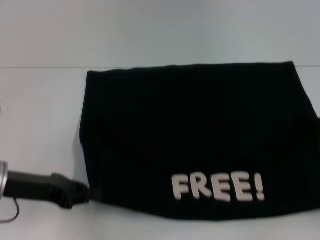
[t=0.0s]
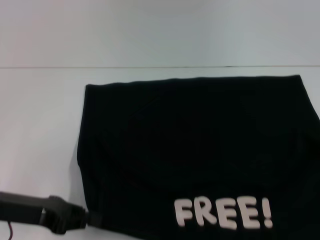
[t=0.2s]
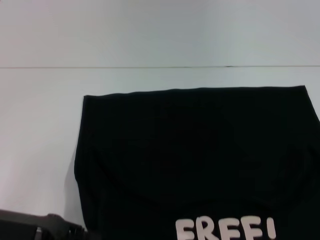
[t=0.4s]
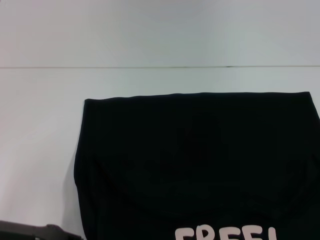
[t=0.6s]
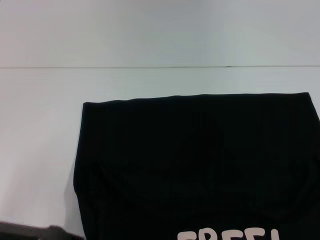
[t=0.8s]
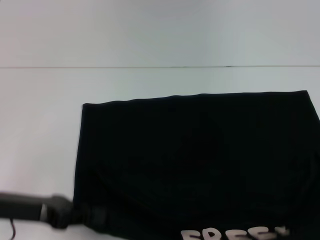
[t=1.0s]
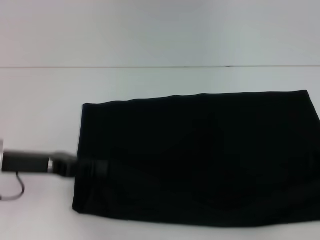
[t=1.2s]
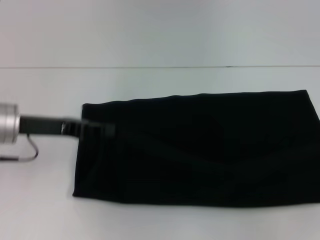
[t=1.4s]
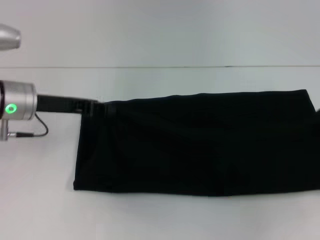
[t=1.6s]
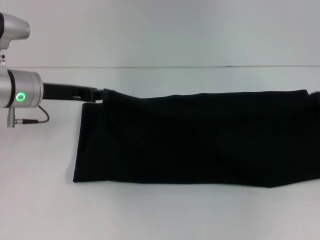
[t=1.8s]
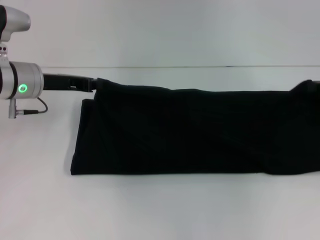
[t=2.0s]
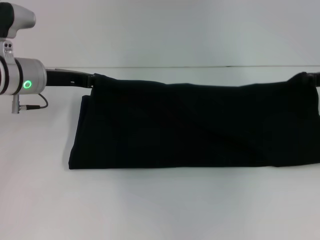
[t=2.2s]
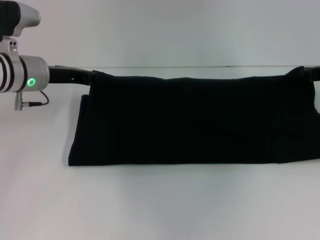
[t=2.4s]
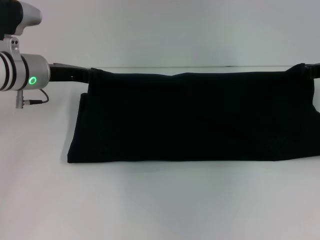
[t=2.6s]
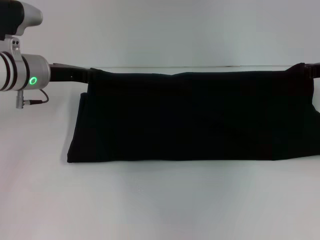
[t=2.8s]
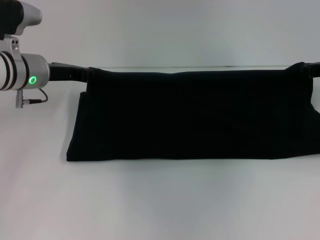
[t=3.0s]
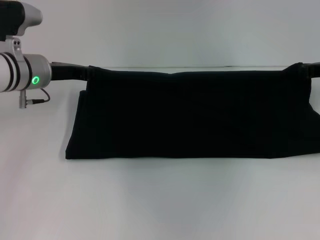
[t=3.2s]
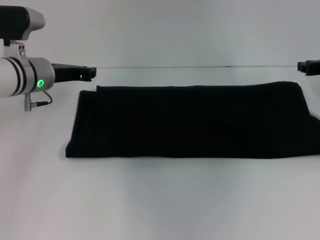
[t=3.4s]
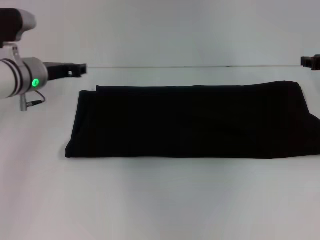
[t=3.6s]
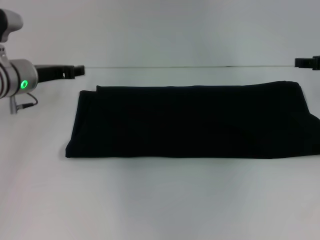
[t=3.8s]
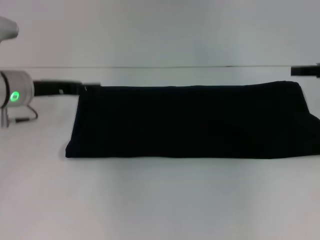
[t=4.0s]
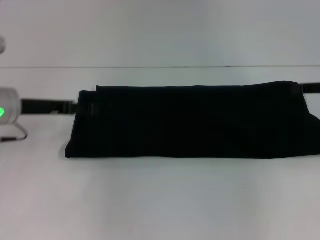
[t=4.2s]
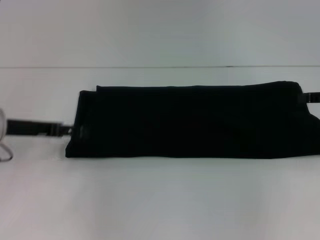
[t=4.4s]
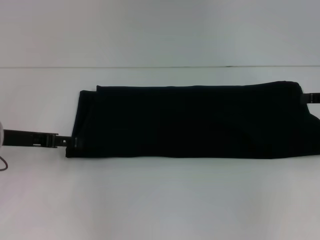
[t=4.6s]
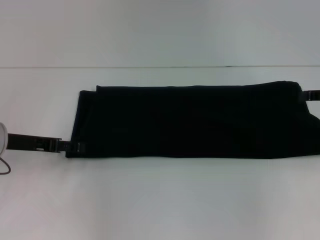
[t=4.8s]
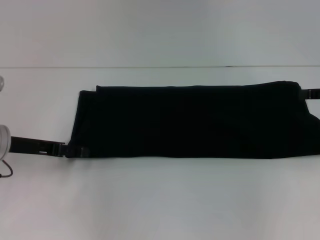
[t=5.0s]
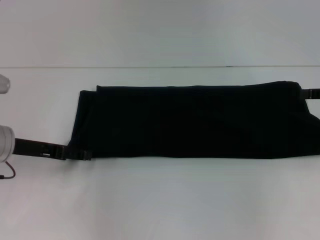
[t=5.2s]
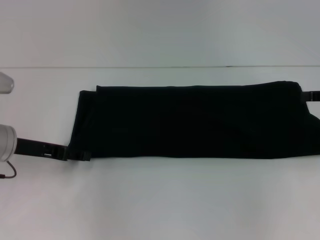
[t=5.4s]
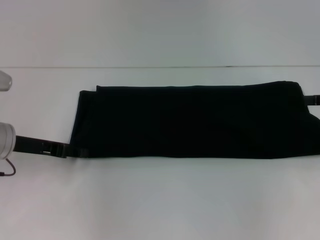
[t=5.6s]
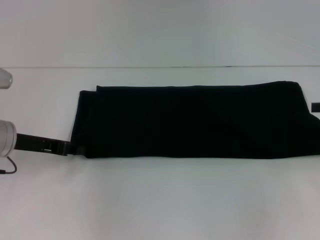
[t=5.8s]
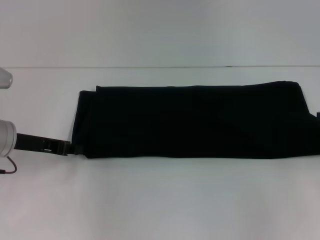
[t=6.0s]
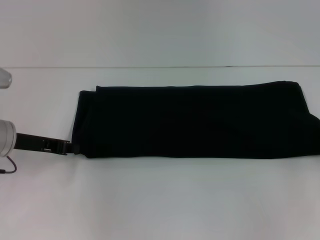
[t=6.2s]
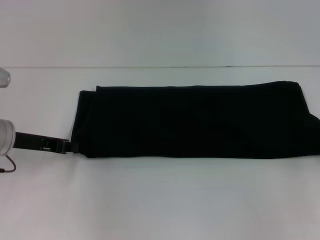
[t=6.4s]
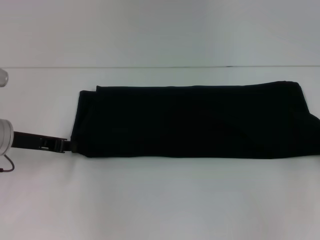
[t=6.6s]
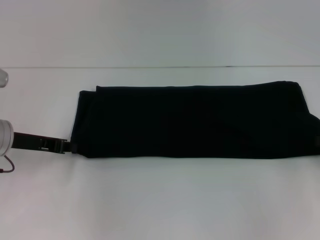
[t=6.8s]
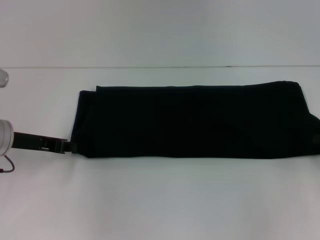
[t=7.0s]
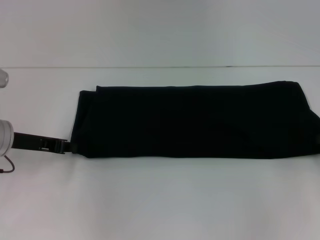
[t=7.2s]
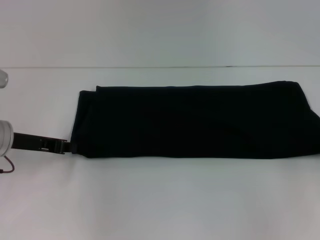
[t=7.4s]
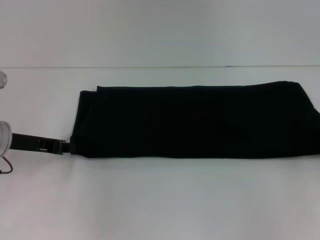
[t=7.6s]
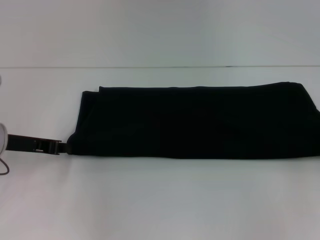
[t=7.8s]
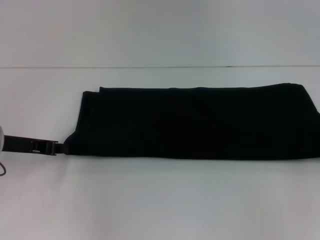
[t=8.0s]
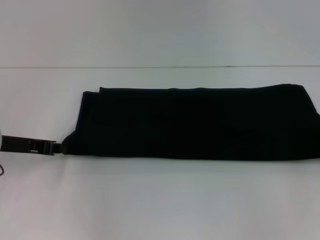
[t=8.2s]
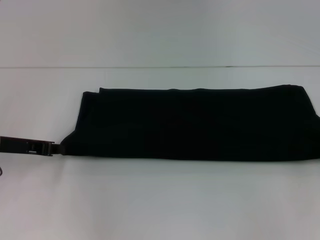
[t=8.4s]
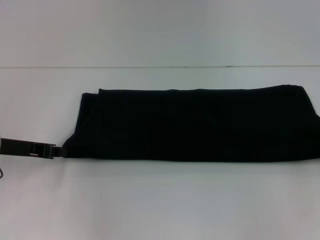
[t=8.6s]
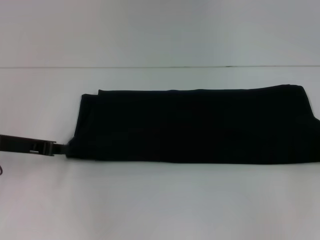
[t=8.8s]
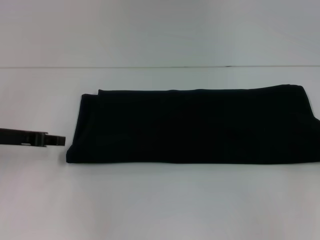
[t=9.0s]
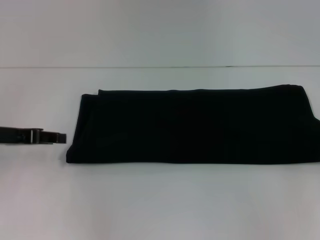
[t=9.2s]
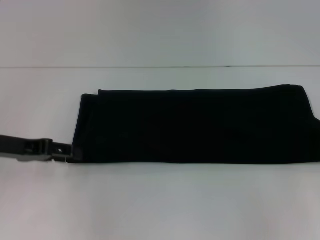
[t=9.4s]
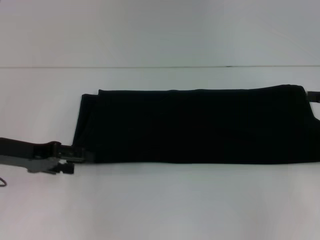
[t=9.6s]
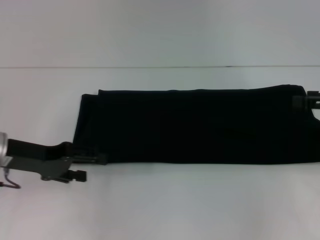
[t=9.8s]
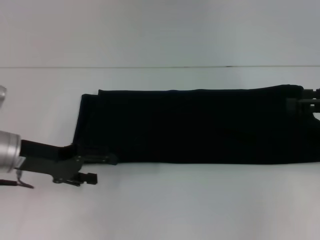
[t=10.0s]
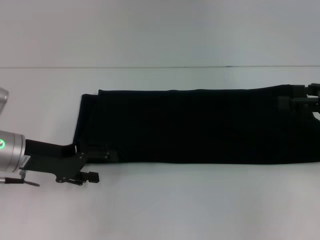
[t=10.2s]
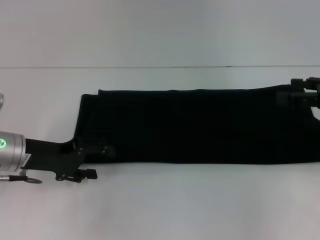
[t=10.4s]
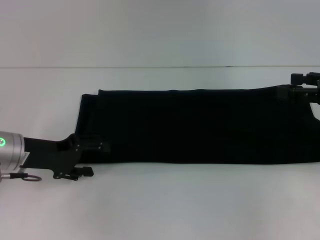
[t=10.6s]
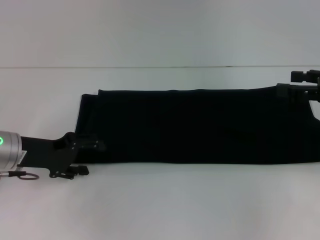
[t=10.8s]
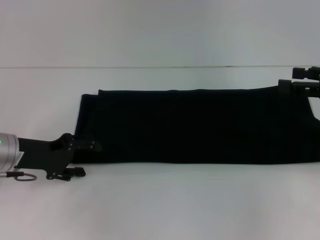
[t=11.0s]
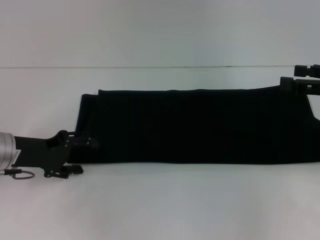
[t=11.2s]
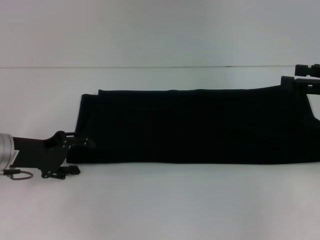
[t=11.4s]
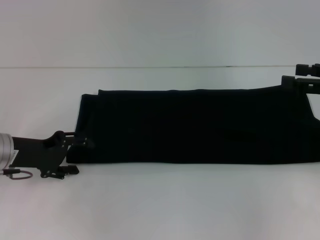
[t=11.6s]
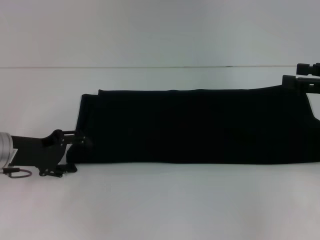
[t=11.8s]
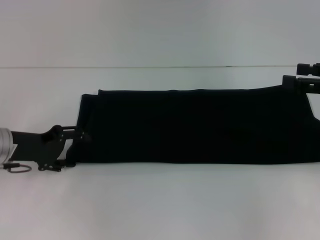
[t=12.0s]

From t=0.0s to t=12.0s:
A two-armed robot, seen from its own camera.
Step, from t=0.6s to t=3.8s: Fold the clothes with your right hand.
From t=0.0s to t=1.6s: Both grippers travel together forward, about 10 cm.
From t=1.6s to t=3.0s: The left gripper goes roughly 5 cm forward, while the right gripper shifts roughly 10 cm forward and to the left.
From t=3.0s to t=4.4s: The right gripper heads backward, covering some 5 cm, and opens up. Meanwhile the left gripper heads backward and to the left, covering about 10 cm, and opens up.
From t=4.4s to t=6.0s: The left gripper closes up.
From t=7.6s to t=9.0s: The grippers make only small movements.
From t=9.0s to t=10.4s: The left gripper changes place by some 5 cm, and opens up. Meanwhile the right gripper travels to the left by about 10 cm, and opens.
From t=10.4s to t=12.0s: The grippers move only a little.

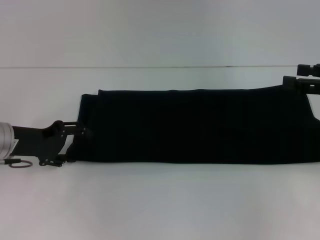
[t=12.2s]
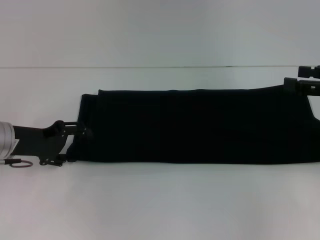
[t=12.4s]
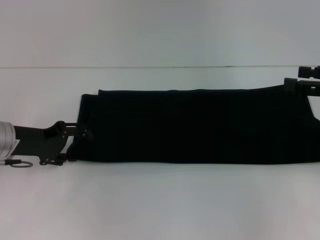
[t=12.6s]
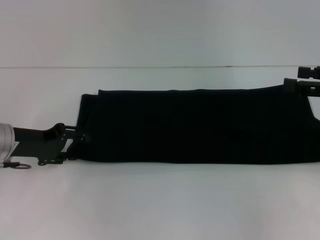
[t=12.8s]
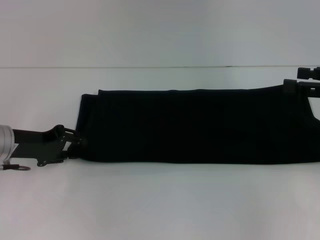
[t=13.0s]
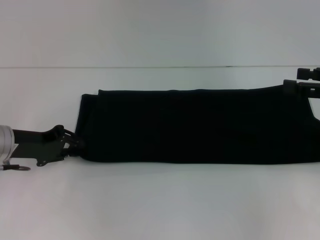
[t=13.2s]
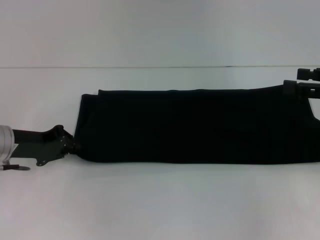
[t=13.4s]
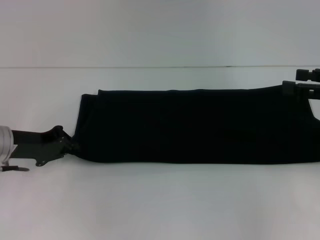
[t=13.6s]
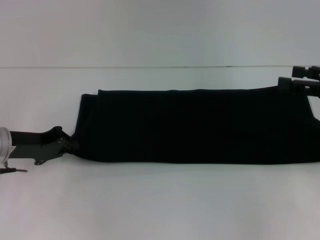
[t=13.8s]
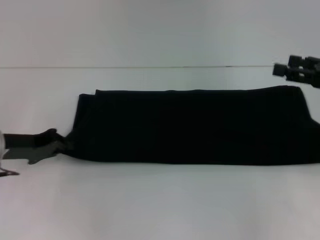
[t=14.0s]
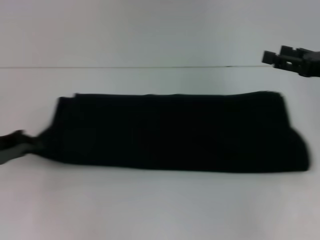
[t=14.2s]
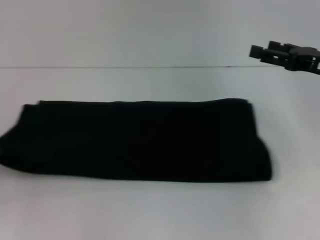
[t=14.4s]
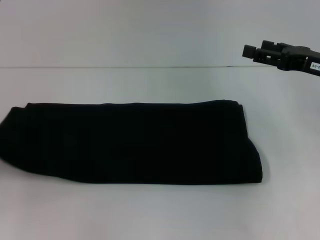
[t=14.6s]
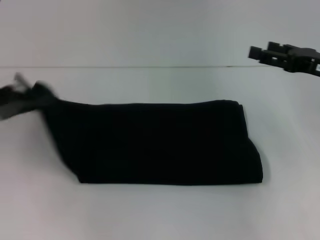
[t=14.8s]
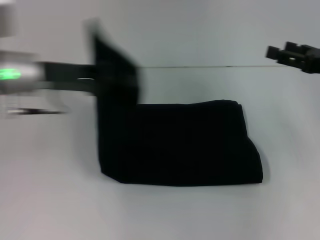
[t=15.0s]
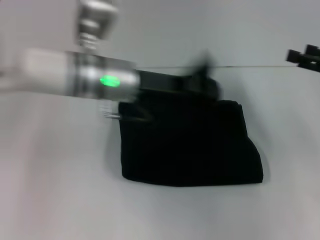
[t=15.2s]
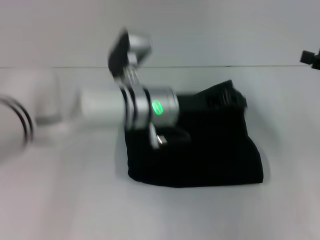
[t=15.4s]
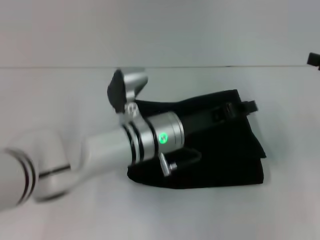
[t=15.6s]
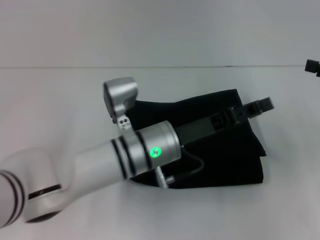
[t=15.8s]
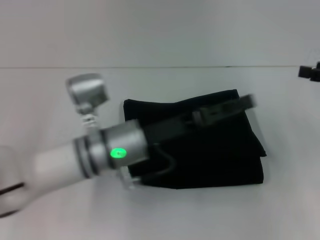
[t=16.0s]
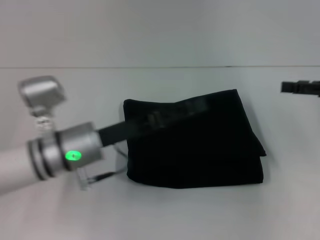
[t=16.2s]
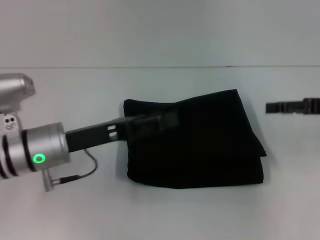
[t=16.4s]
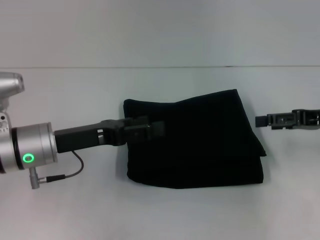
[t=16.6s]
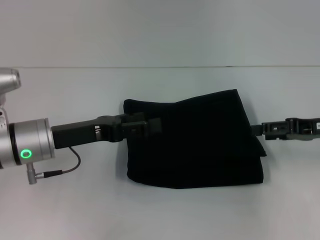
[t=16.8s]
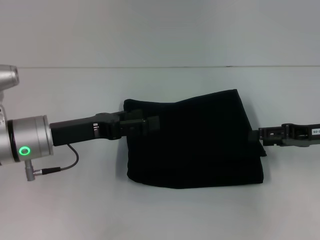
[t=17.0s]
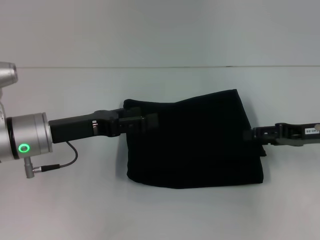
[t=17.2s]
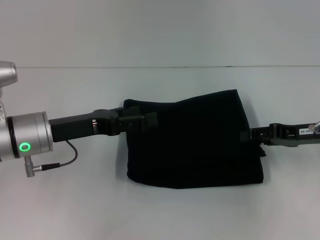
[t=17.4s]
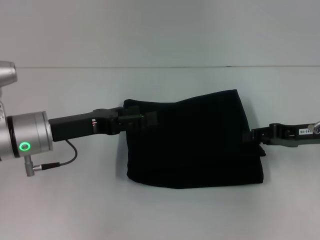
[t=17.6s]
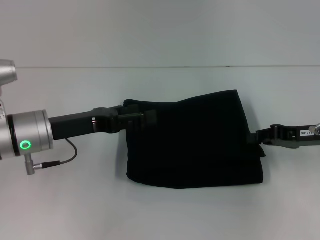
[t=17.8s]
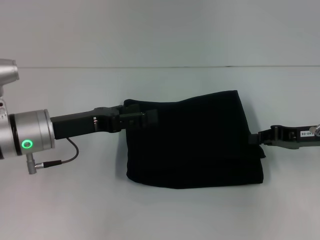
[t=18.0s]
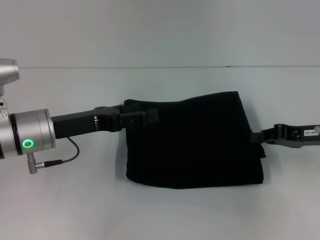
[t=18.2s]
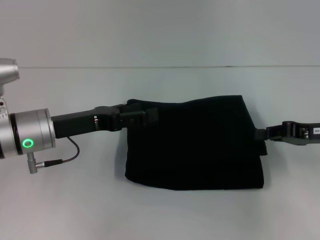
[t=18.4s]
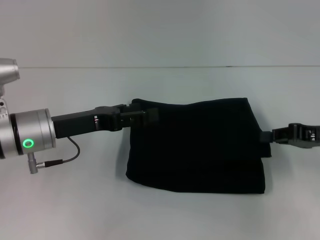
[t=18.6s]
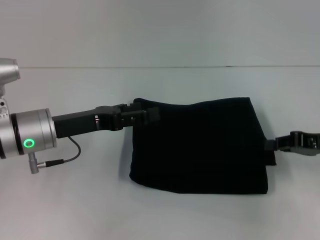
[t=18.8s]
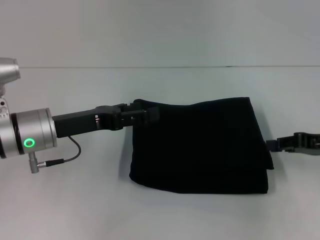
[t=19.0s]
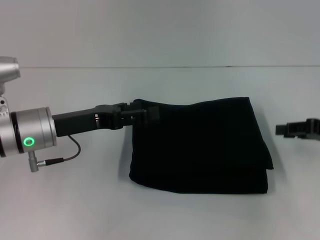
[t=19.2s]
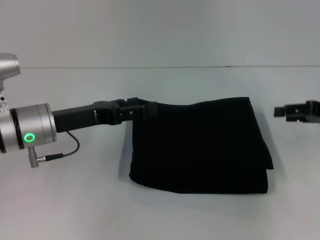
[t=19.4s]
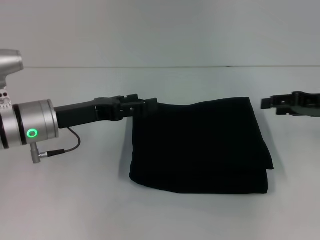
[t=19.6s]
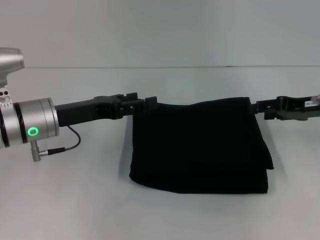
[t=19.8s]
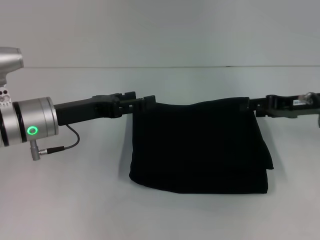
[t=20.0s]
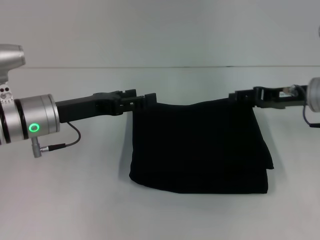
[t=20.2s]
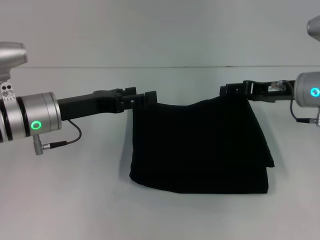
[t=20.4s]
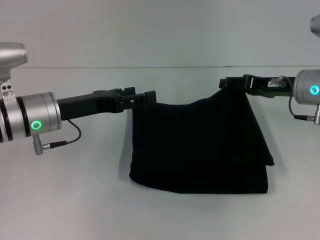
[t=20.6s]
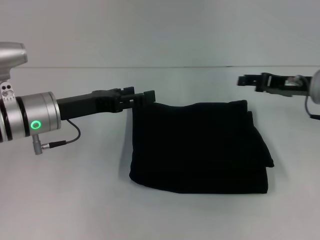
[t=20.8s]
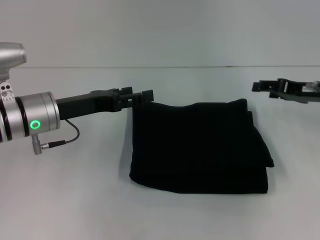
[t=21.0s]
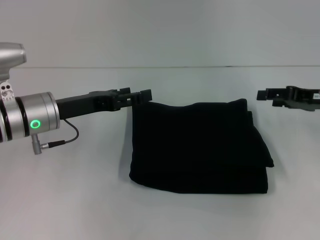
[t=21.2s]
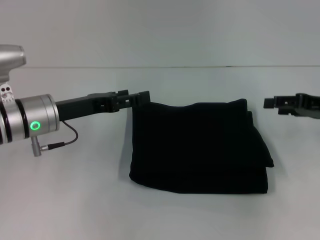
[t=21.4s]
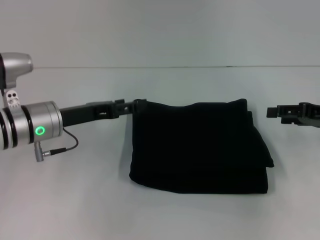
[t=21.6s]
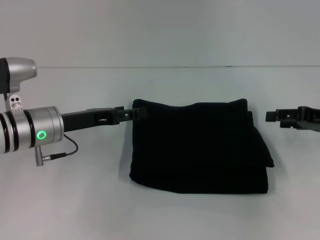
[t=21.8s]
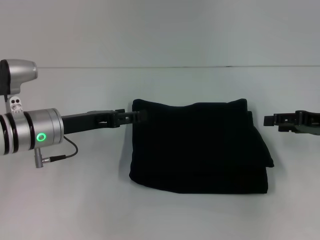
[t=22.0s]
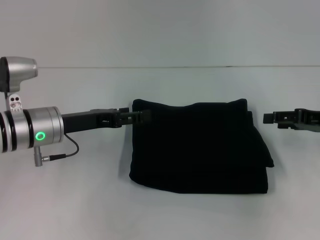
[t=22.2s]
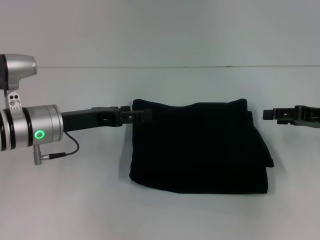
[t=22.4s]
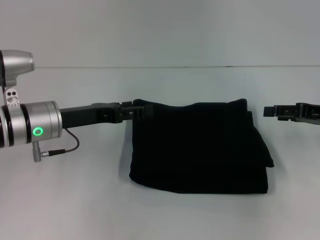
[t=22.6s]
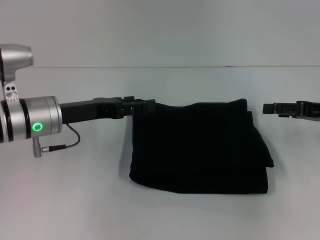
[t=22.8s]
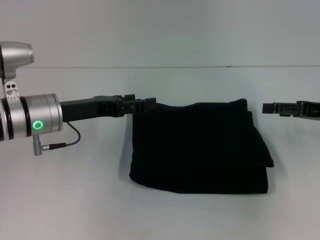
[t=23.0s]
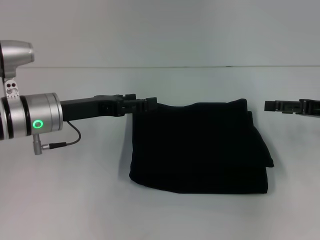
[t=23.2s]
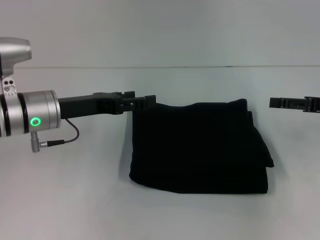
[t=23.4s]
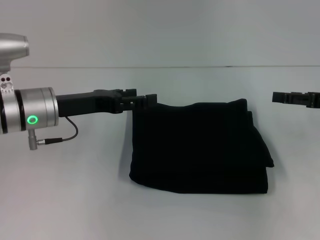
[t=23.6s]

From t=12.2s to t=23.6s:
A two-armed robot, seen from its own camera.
Step, from t=12.2s to t=15.8s: Fold the clothes with your left hand.
From t=12.2s to t=13.6s: The left gripper closes up.
From t=13.6s to t=15.0s: The left gripper moves upward and to the right, some 10 cm.
From t=15.0s to t=16.4s: The left gripper heads downward and backward, covering some 10 cm, moves roughly 20 cm to the right and comes back, and opens its fingers.
From t=16.4s to t=17.8s: The right gripper shifts by about 5 cm, and closes.
From t=17.8s to t=19.4s: The right gripper moves about 5 cm.
From t=19.4s to t=20.8s: The right gripper moves to the left, about 5 cm.
From t=20.8s to t=22.2s: The right gripper moves to the right and backward, some 10 cm.
From t=22.2s to t=23.6s: There are only small adjustments of the grippers.
